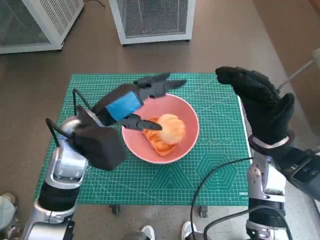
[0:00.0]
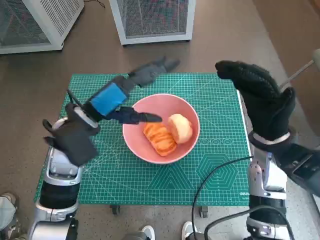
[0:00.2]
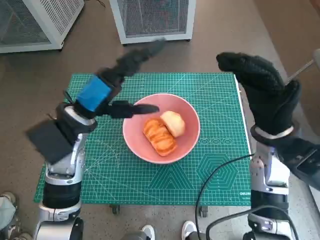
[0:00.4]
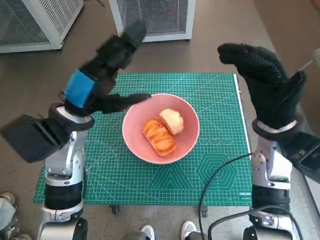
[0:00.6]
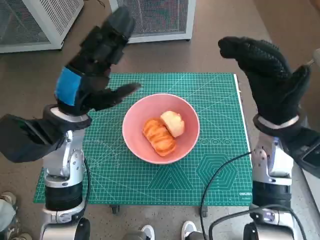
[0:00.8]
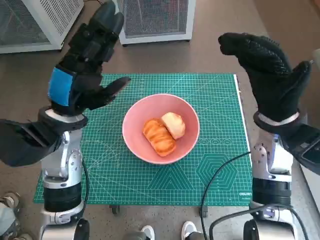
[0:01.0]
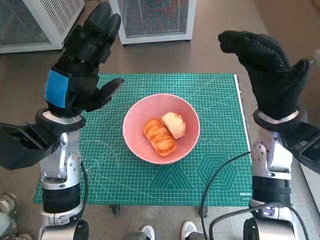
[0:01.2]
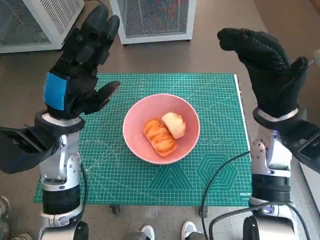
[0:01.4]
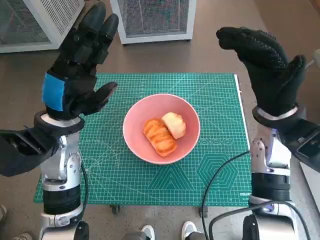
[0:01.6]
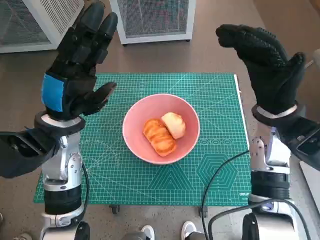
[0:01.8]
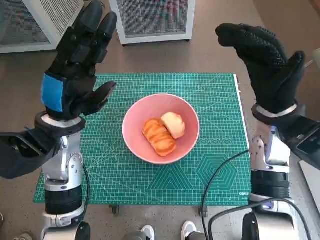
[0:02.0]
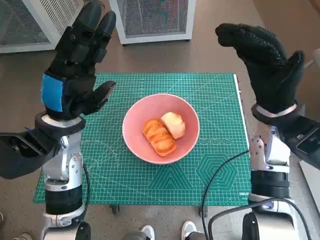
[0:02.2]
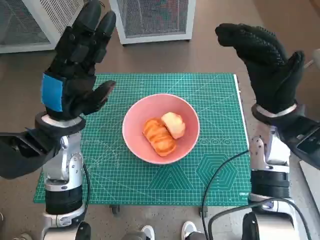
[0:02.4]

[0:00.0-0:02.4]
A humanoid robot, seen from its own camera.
Task of the whole recording: Push the bowl into the center of the table and put the bread into the bowl.
0:00.0 to 0:01.2: The right hand moves roughly 5 cm.
0:01.2 to 0:02.4: There are only small adjustments of the hands.

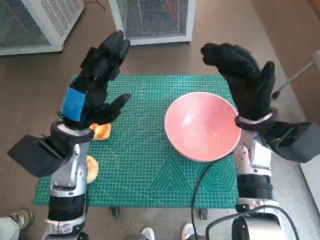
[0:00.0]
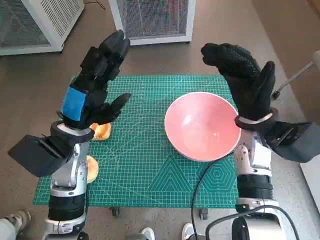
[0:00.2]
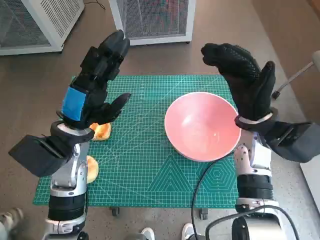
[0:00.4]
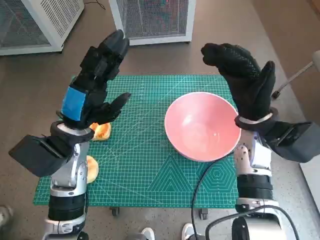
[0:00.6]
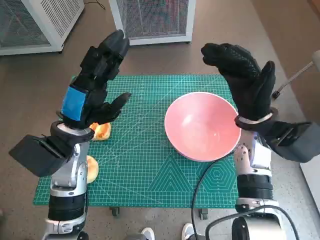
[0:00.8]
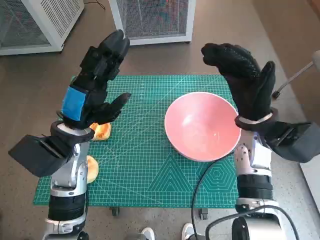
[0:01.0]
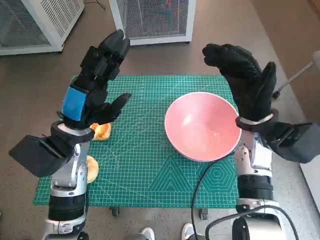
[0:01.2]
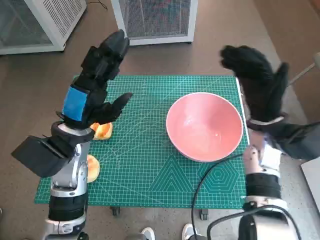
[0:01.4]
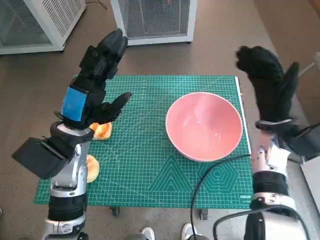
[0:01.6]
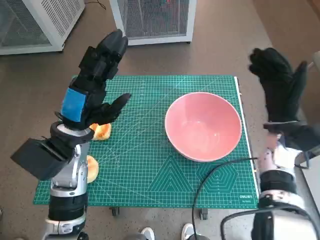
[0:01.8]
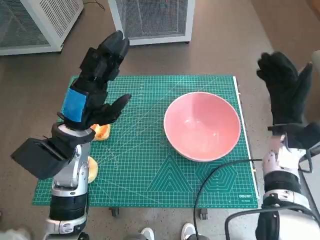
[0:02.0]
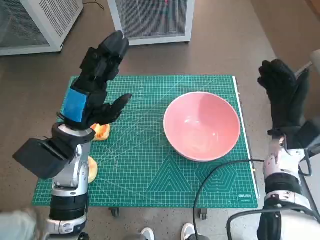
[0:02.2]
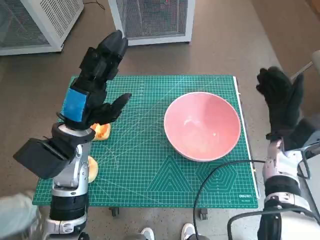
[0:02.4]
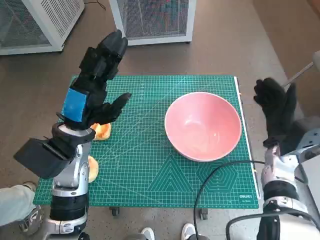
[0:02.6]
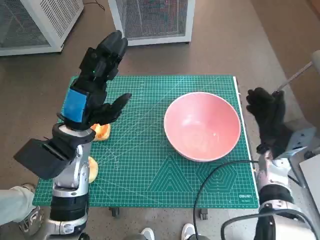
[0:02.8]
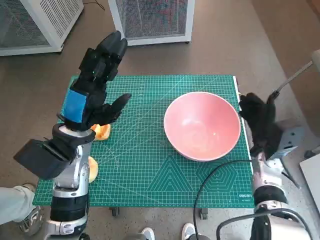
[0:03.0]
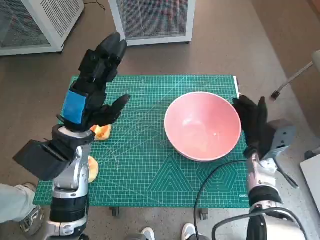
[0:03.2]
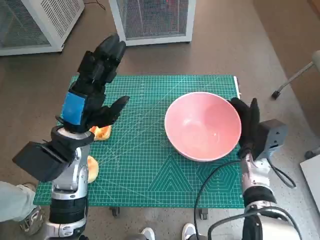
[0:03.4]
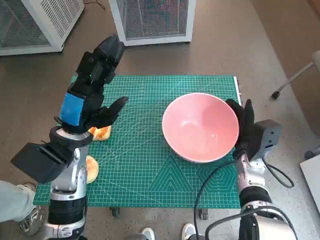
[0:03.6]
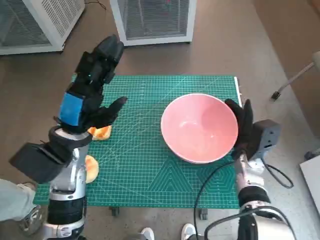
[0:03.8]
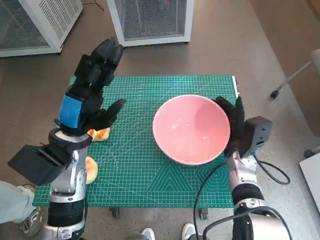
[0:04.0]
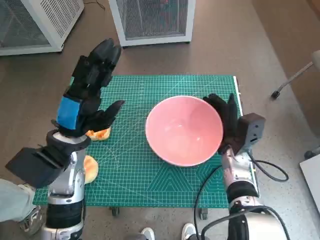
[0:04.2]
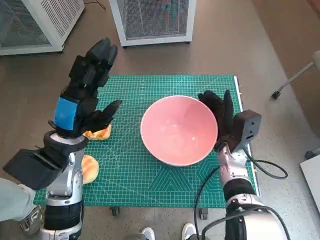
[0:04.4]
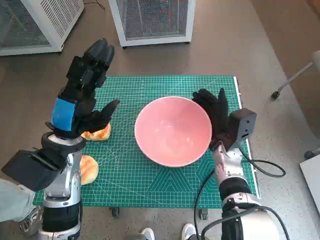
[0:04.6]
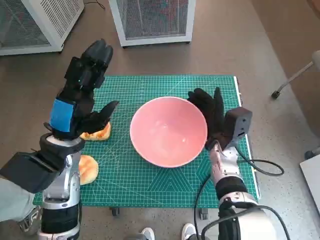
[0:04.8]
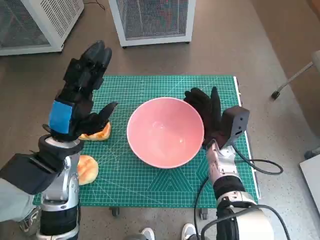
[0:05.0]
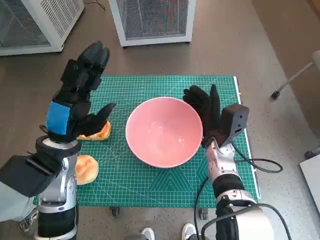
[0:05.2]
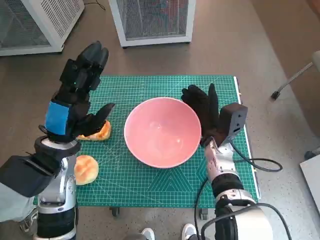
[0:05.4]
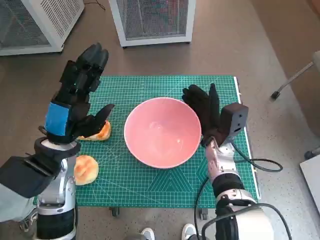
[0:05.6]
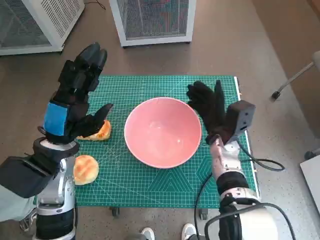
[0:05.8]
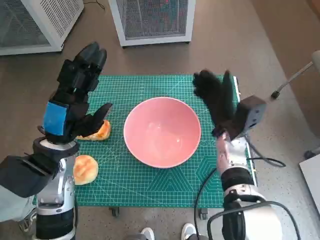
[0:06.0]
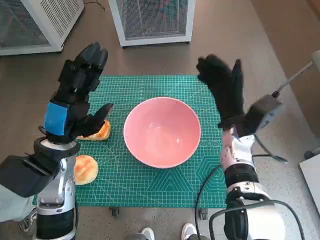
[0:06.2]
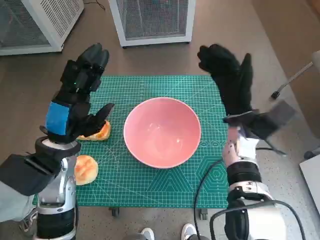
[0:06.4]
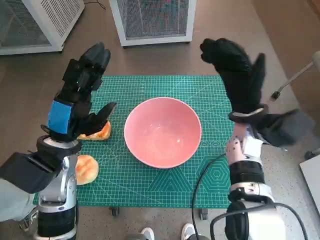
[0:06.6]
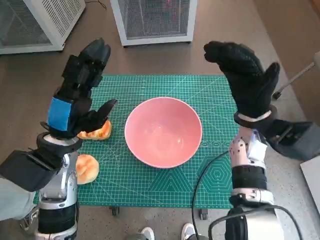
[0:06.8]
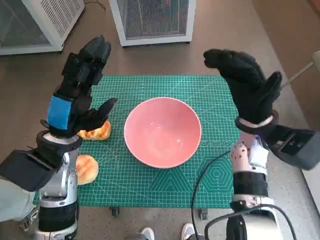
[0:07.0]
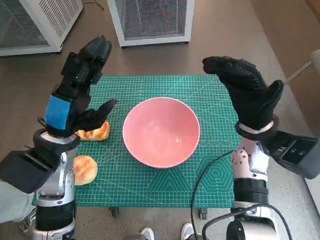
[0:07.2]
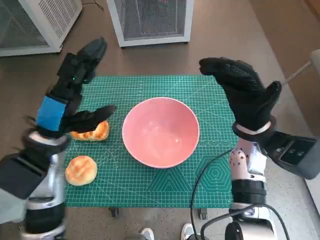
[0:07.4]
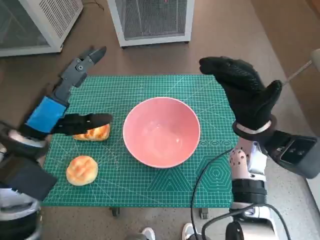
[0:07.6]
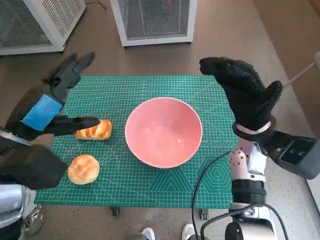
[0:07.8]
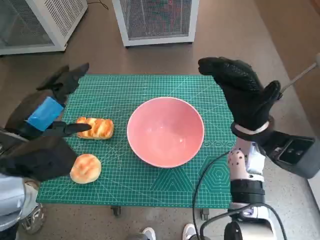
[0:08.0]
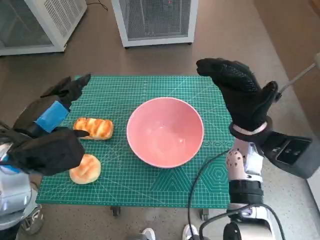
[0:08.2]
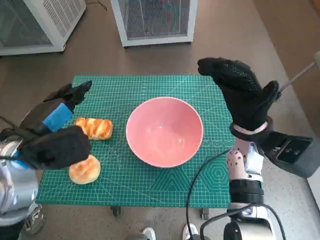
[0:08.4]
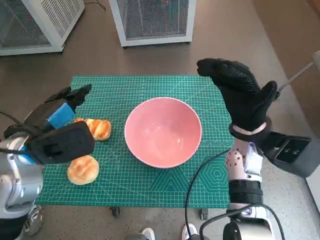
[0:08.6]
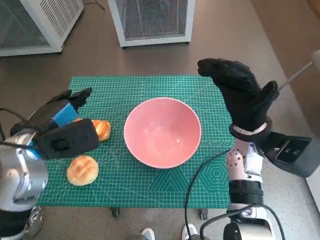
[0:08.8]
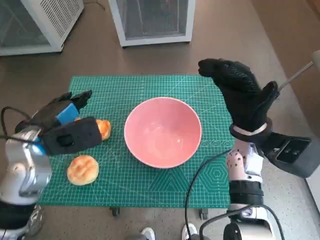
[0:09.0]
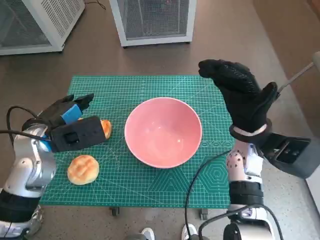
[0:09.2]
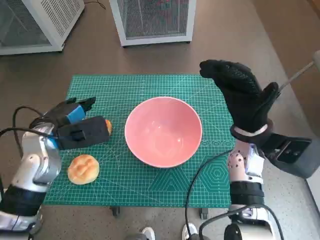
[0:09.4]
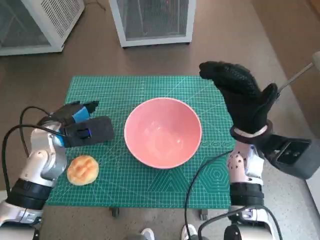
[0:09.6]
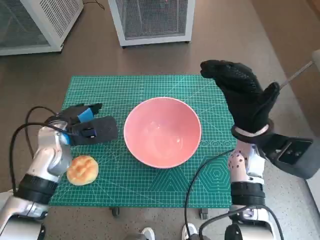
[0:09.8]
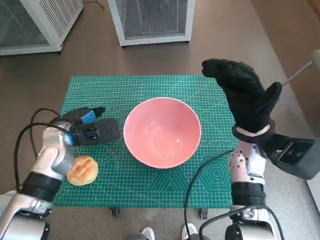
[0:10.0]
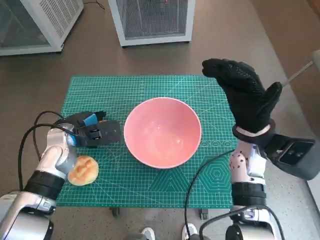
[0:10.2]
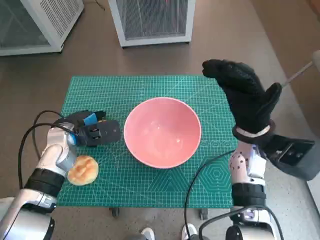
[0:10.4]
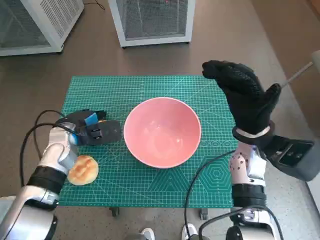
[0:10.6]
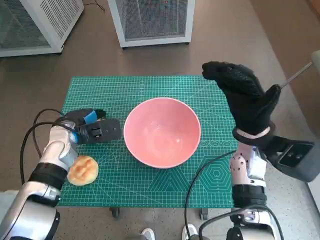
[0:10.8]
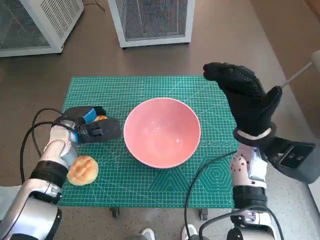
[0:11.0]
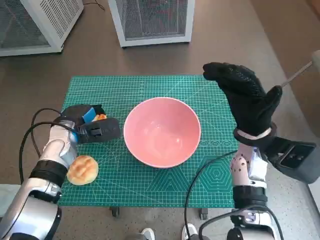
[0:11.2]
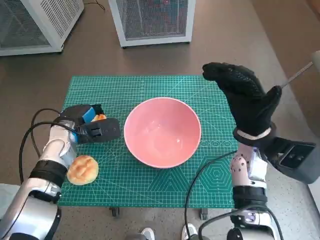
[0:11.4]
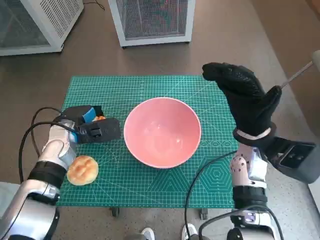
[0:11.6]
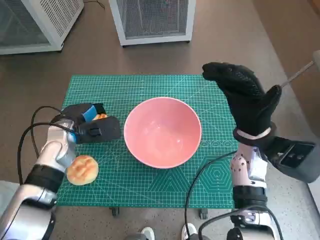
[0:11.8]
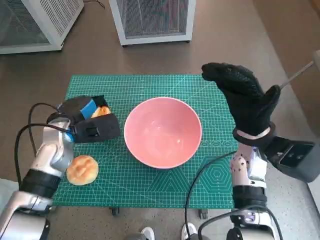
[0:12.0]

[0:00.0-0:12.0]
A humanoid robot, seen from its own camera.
Task of the whole recording: Push the bowl into the center of the table and put the bread into the bowl.
Step, 0:00.0 to 0:05.8: Move the pink bowl to the center of table with right hand.
Step, 0:06.0 to 0:10.8: Grasp the long bread with left hand.
0:01.6 to 0:03.0: The right hand goes some 10 cm downward.
0:03.0 to 0:04.4: The right hand moves to the left, roughly 10 cm.
0:06.0 to 0:07.6: The right hand goes approximately 5 cm upward.
0:09.0 to 0:10.4: The left hand moves downward and forward, approximately 10 cm.
0:10.4 to 0:12.0: The hands move only a little.

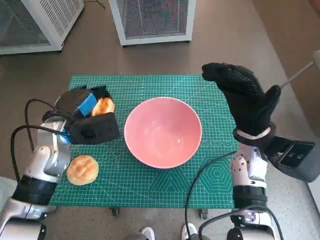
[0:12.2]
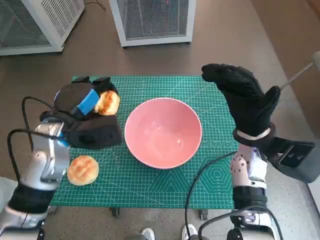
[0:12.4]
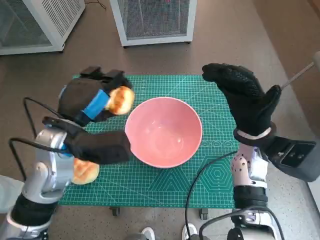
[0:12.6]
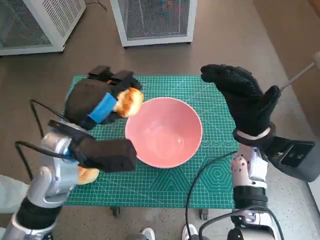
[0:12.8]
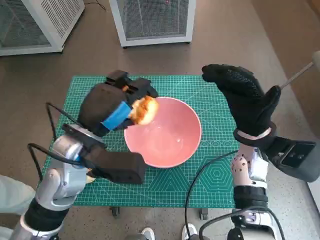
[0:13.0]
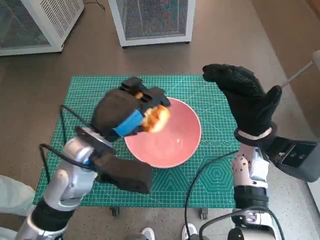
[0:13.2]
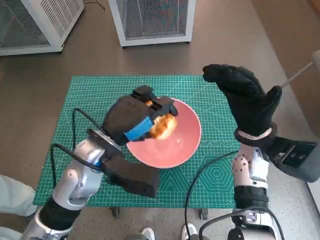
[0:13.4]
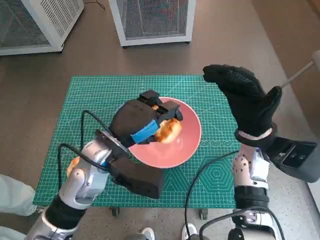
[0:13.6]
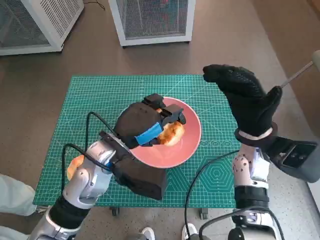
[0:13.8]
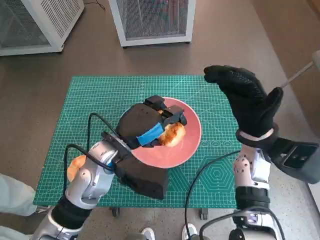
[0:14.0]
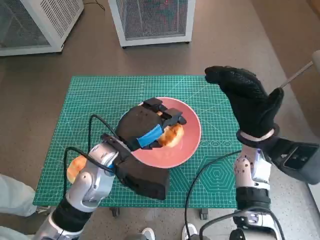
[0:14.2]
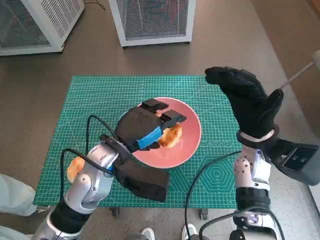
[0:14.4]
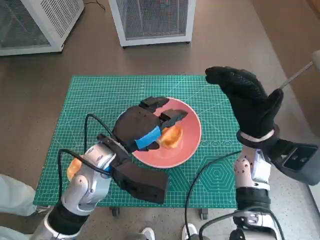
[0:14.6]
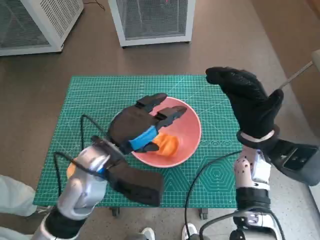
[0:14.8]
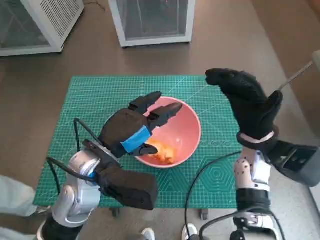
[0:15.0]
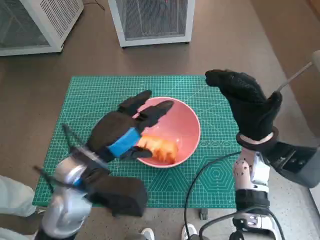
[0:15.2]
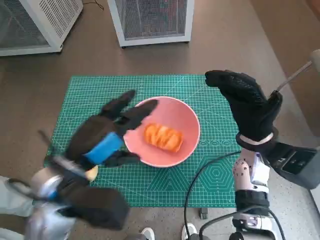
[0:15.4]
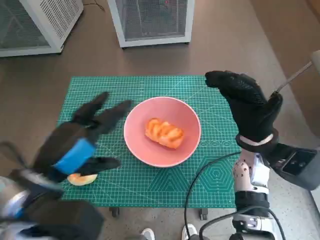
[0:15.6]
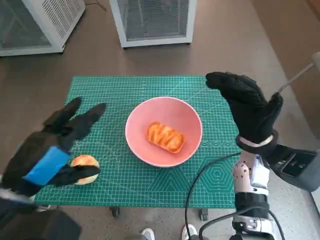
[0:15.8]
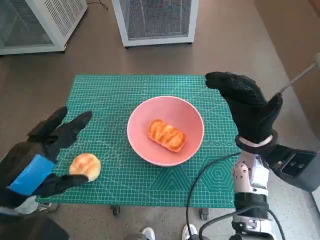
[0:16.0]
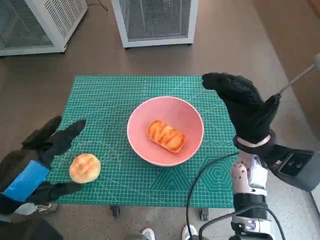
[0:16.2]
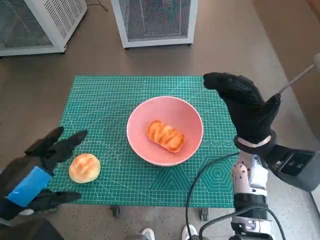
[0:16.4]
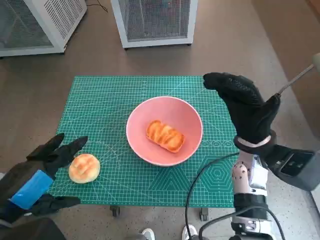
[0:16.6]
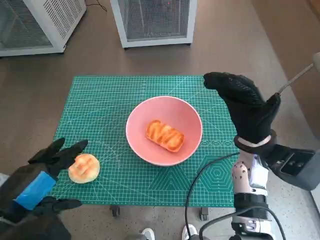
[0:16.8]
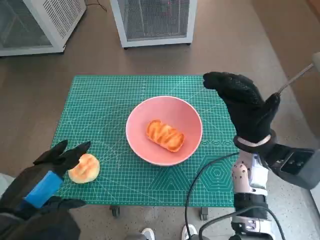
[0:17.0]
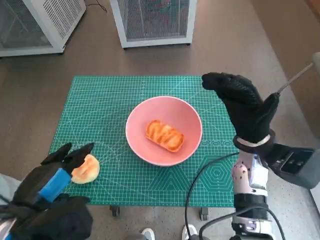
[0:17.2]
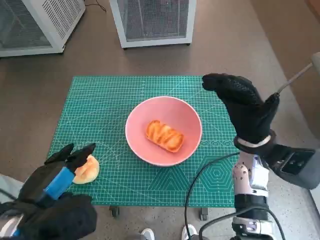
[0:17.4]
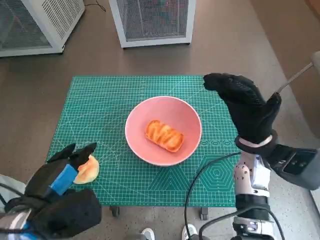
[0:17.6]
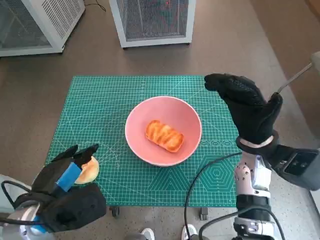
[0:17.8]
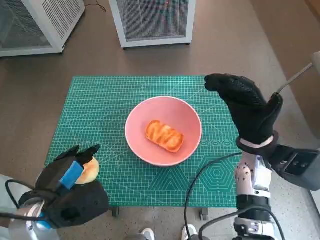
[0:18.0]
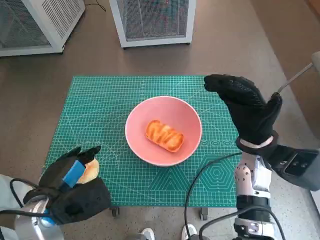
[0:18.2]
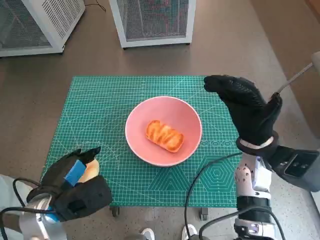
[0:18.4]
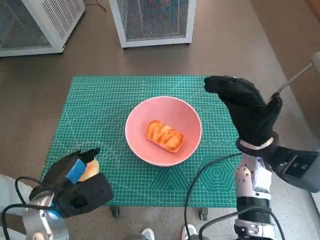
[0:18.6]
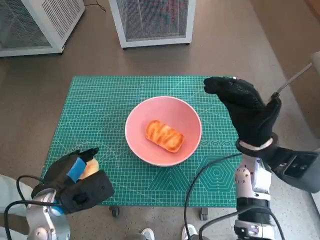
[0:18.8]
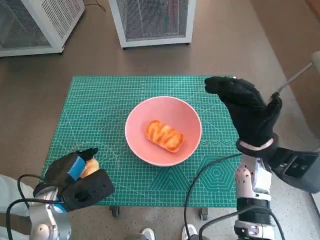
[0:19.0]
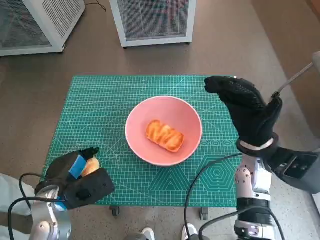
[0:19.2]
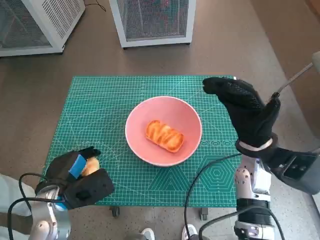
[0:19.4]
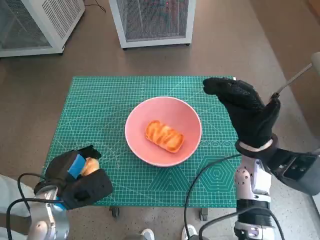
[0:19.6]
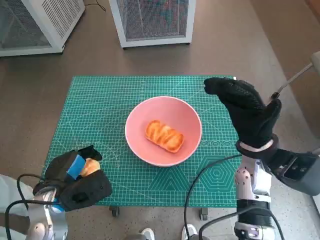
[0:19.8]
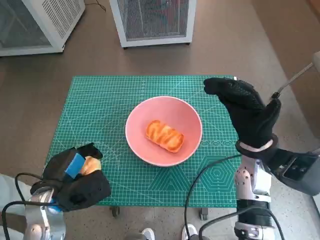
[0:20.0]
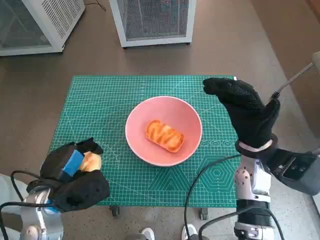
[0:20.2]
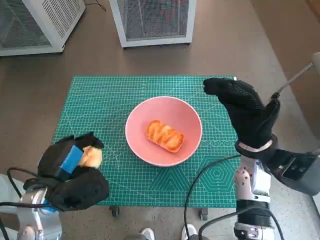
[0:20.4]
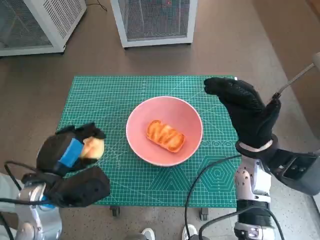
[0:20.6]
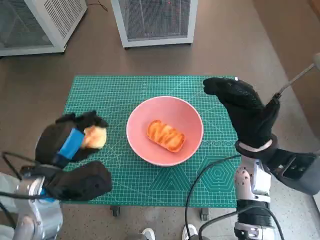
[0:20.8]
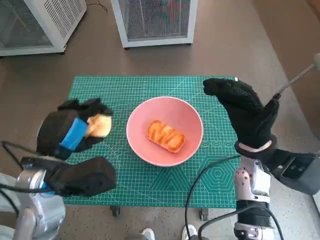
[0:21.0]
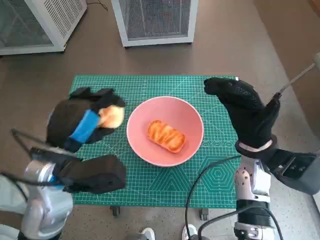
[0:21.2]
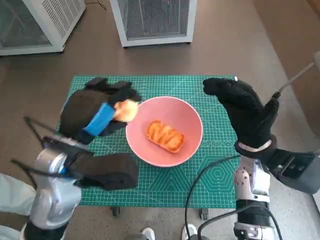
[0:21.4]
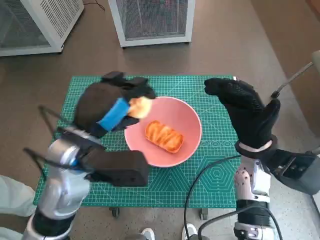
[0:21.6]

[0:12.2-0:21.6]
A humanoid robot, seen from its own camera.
Task of the whole recording: Push the bowl into the center of the table and put the bread into the bowl.
Step, 0:12.2 to 0:14.6: Place the long bread in pink bowl with left hand.
Step, 0:14.8 to 0:19.4: Grasp the round bread with left hand.
0:12.2 to 0:13.8: The left hand shifts roughly 10 cm to the right.
0:13.8 to 0:15.4: The left hand moves backward, about 5 cm.
0:15.4 to 0:17.0: The left hand shifts some 10 cm backward and to the left.
0:17.0 to 0:18.4: The left hand heads downward and forward, covering roughly 10 cm.
0:18.4 to 0:20.0: There are only small adjustments of the hands.
0:20.0 to 0:21.6: The left hand travels upward, to the right and forward by approximately 15 cm.
